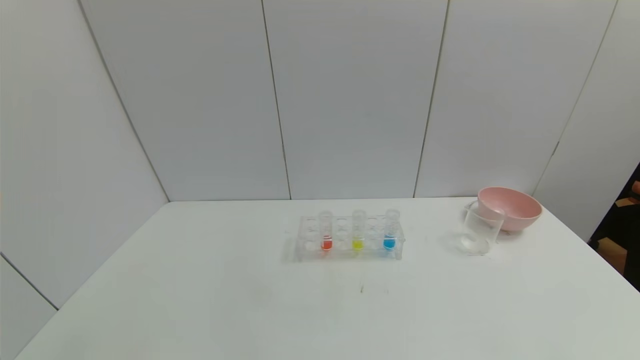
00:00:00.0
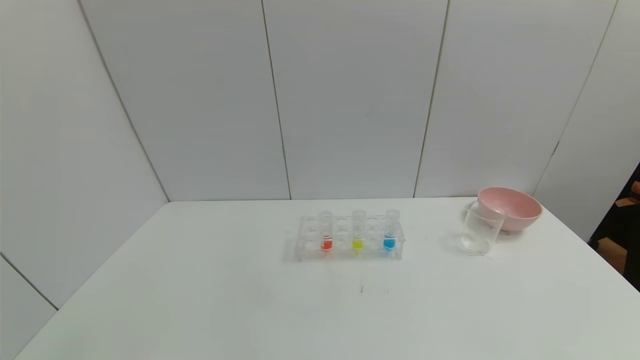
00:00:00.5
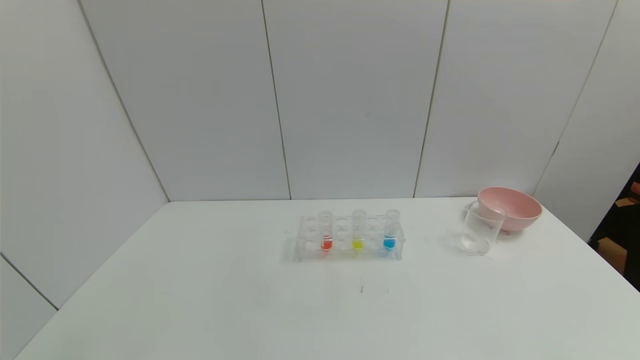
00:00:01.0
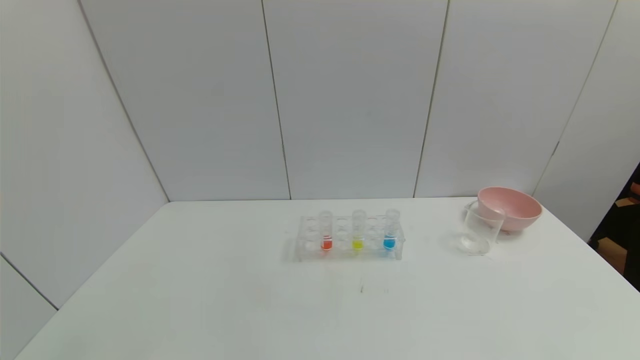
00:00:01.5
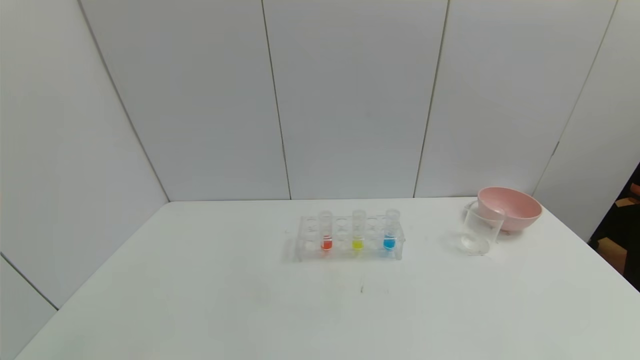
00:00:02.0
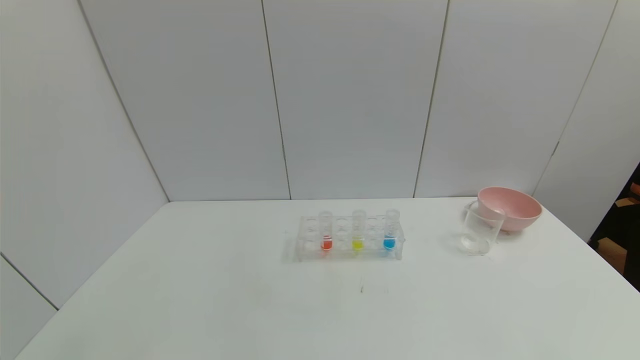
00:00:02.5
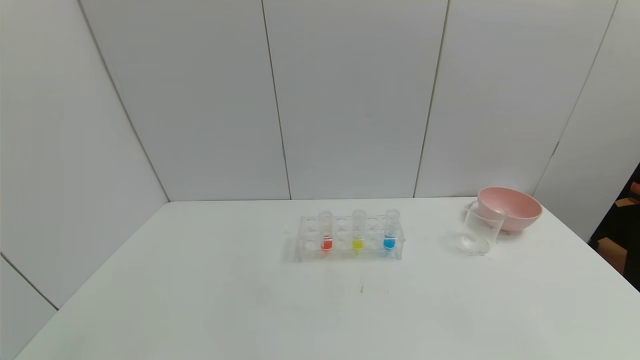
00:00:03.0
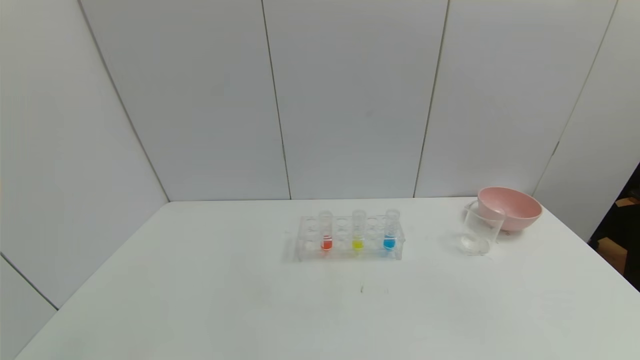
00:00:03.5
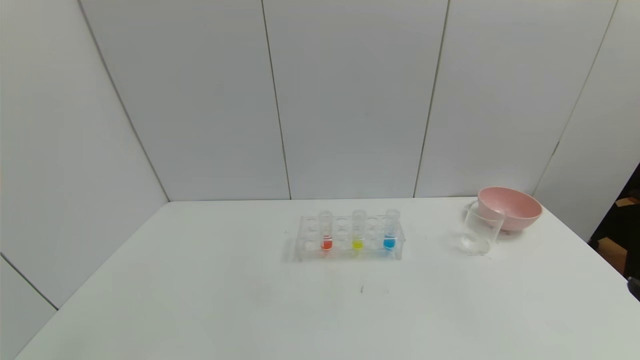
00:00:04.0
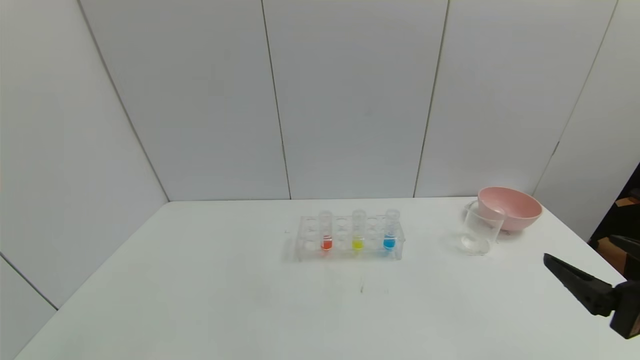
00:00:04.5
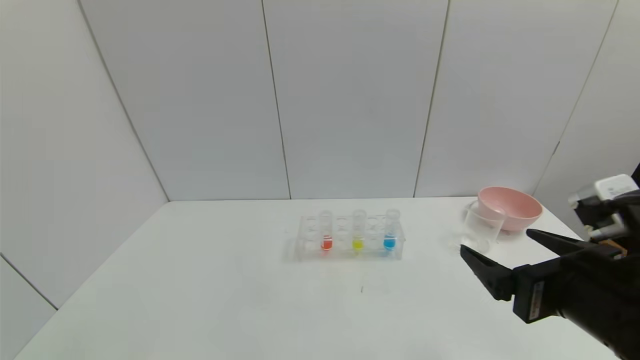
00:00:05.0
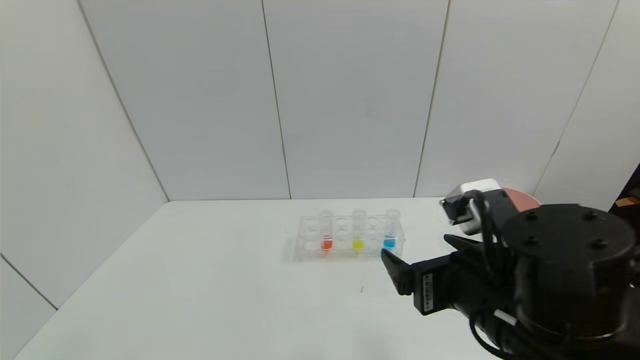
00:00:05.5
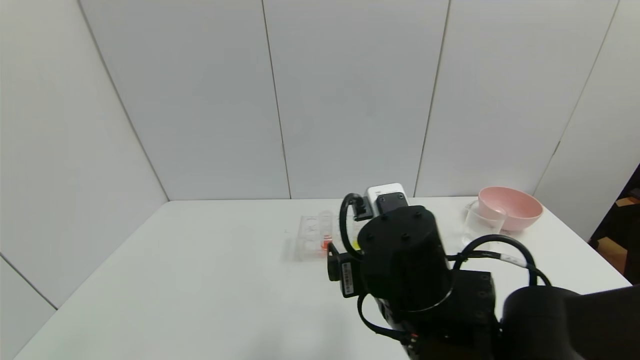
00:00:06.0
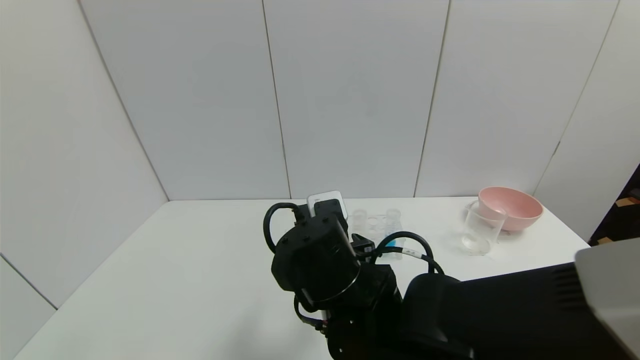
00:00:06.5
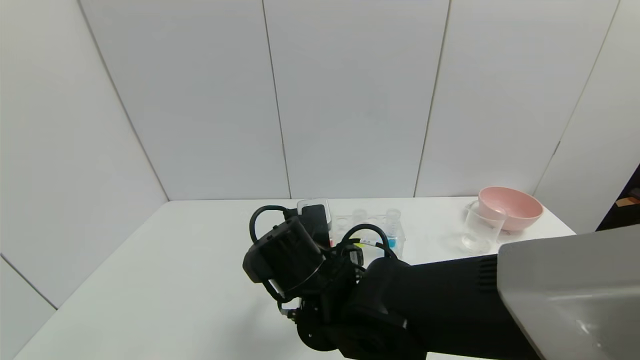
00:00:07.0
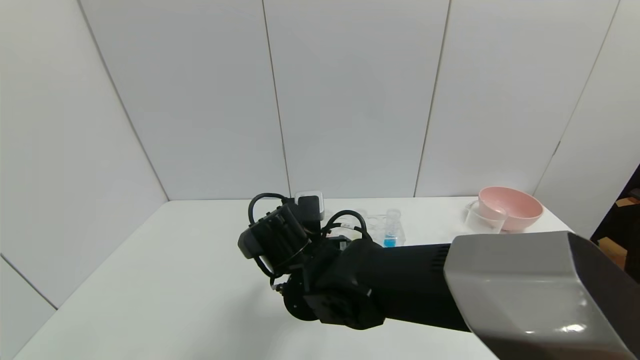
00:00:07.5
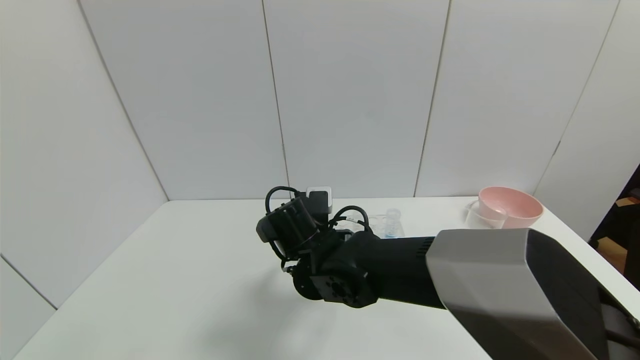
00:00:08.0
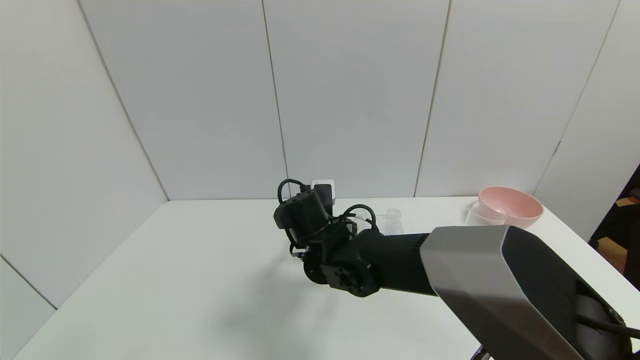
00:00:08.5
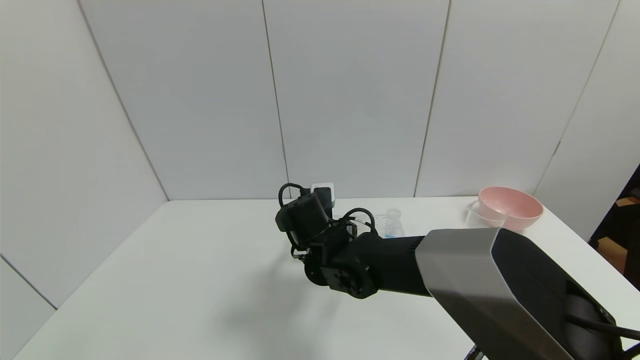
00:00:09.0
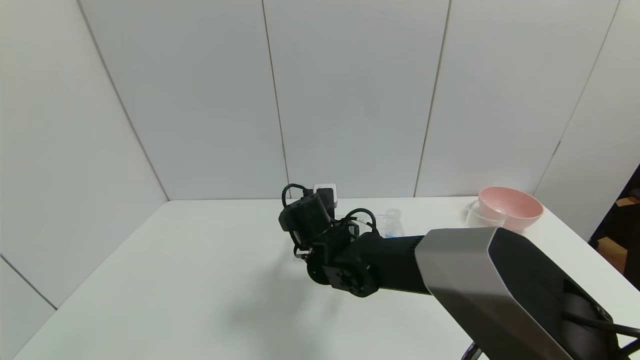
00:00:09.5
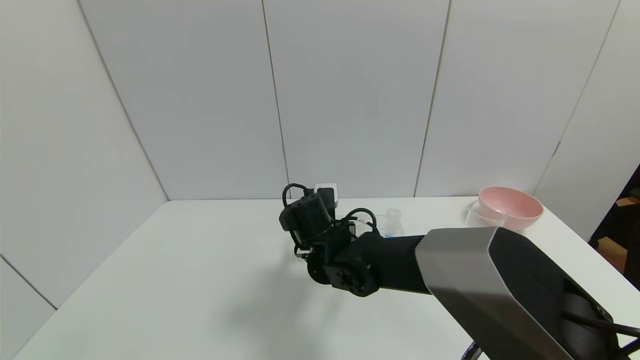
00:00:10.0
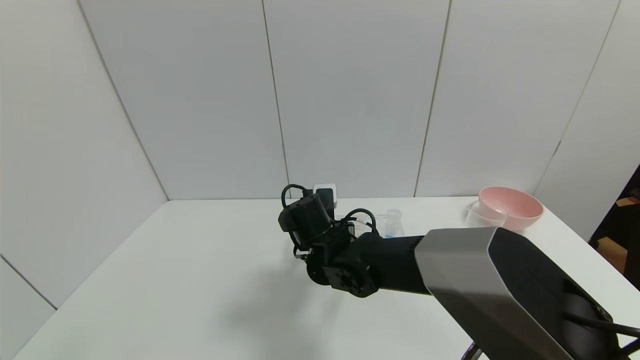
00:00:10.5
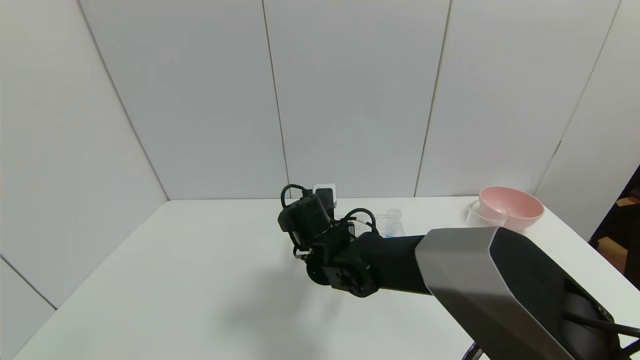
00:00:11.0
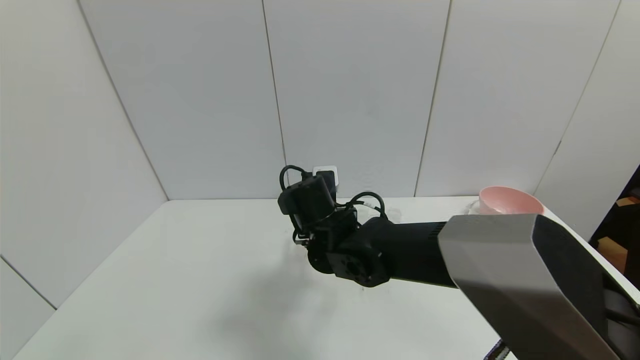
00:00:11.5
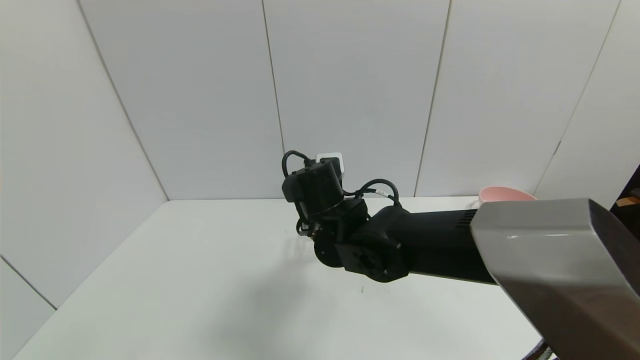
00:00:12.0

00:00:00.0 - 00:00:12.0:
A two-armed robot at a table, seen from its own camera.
Task of the whole recording: pick up the test tube with yellow pigment and the test tube with red pigment by grippers and pour them into the beaker.
Step, 00:00:00.0 - 00:00:10.0: Grasp the red reagent with the right gripper.
00:00:00.0 - 00:00:02.0: Both grippers stay put.
00:00:04.0 - 00:00:06.0: The right gripper goes some 30 cm to the left and forward.
00:00:06.0 - 00:00:08.0: The right gripper heads forward, to the left and downward, covering some 15 cm.
00:00:08.0 - 00:00:10.0: The right gripper closes its fingers.
00:00:10.0 - 00:00:12.0: The right gripper travels upward by about 5 cm, and closes.

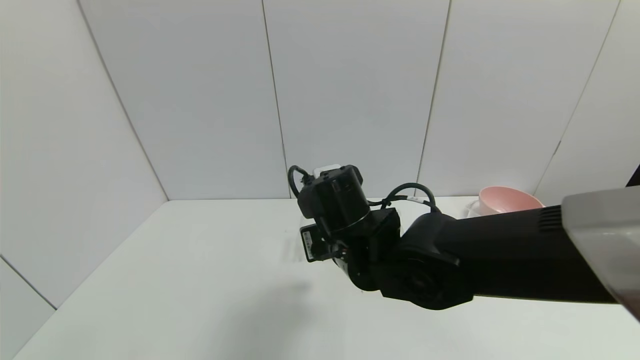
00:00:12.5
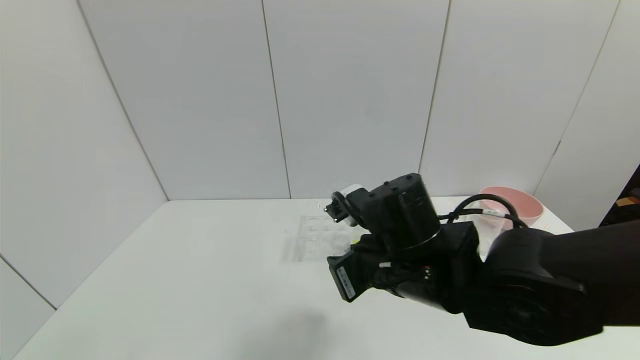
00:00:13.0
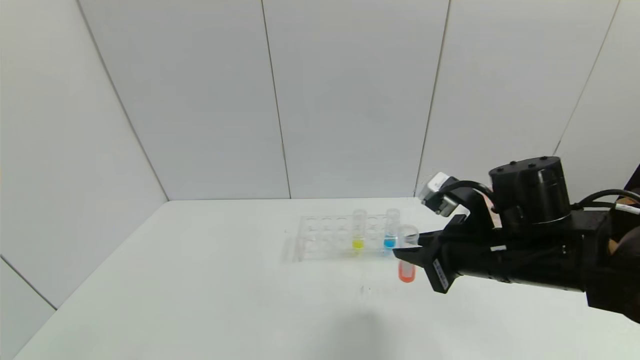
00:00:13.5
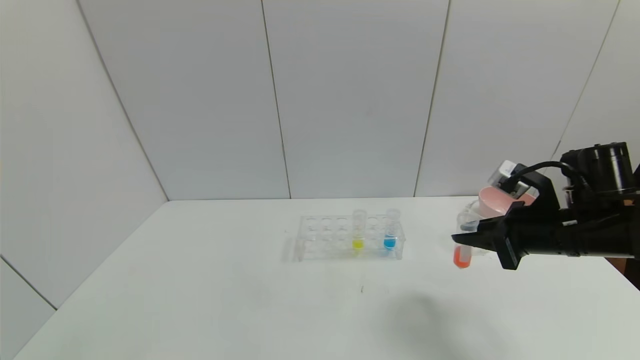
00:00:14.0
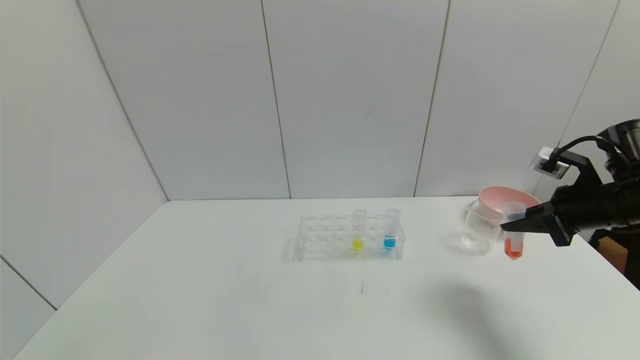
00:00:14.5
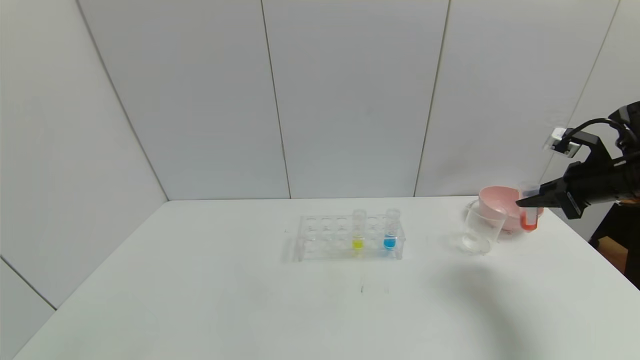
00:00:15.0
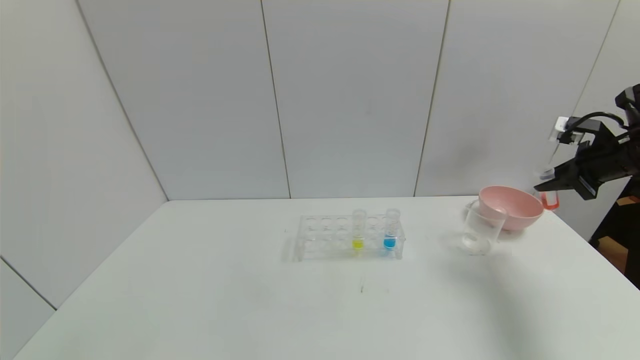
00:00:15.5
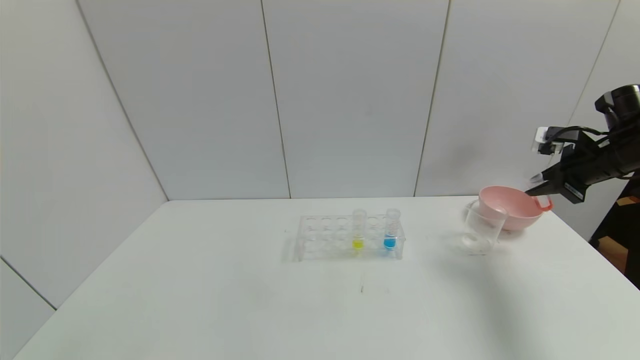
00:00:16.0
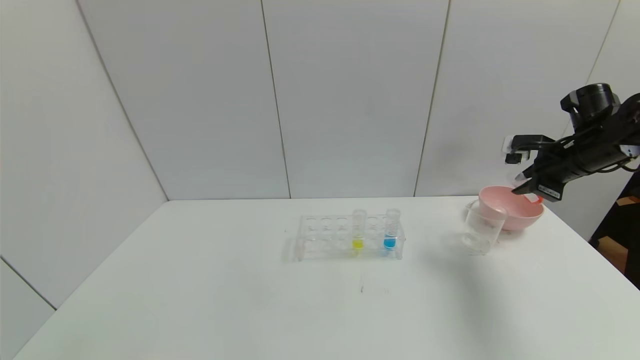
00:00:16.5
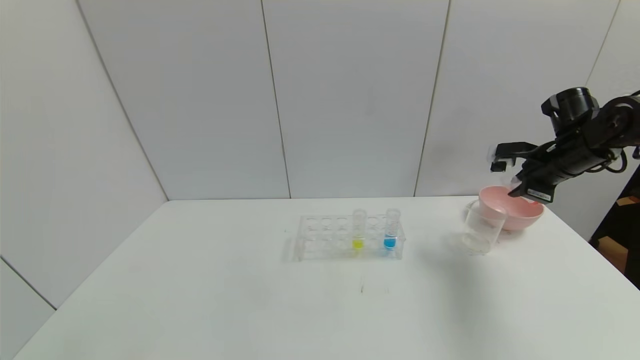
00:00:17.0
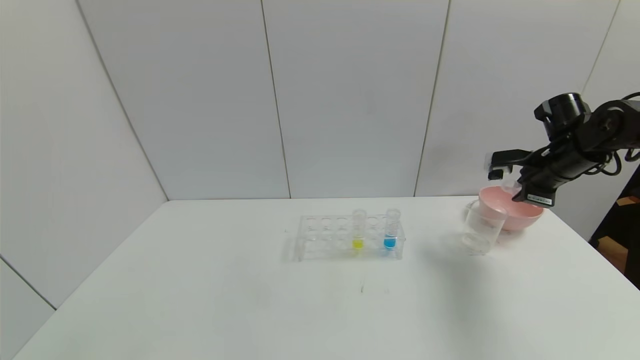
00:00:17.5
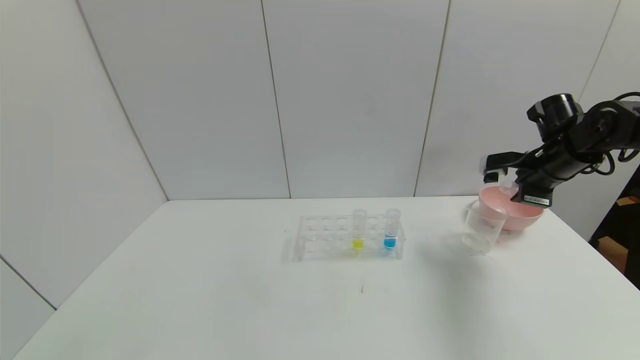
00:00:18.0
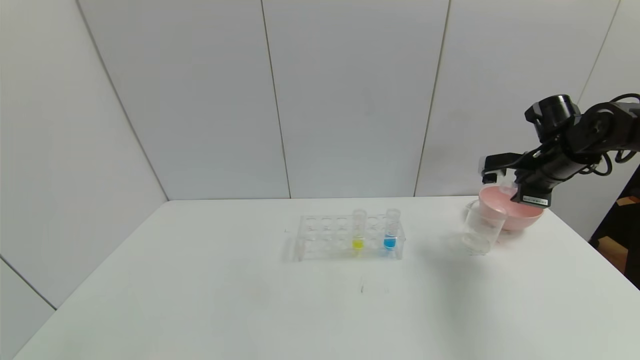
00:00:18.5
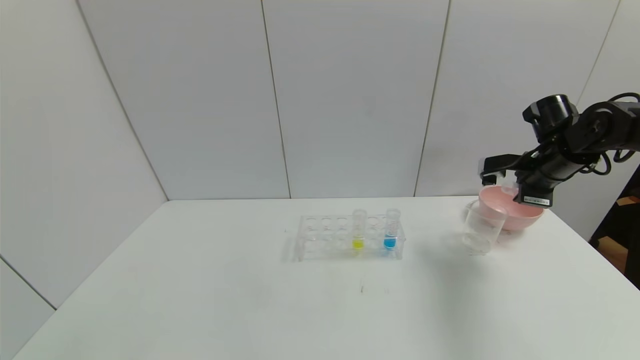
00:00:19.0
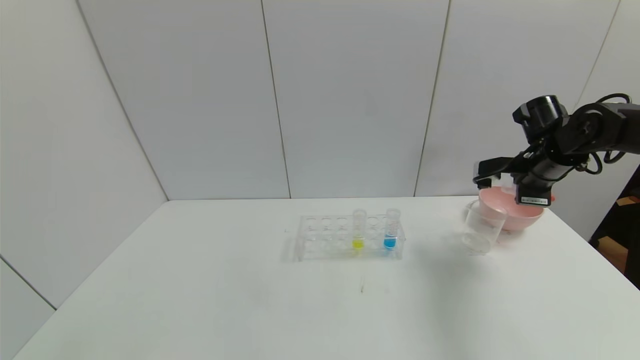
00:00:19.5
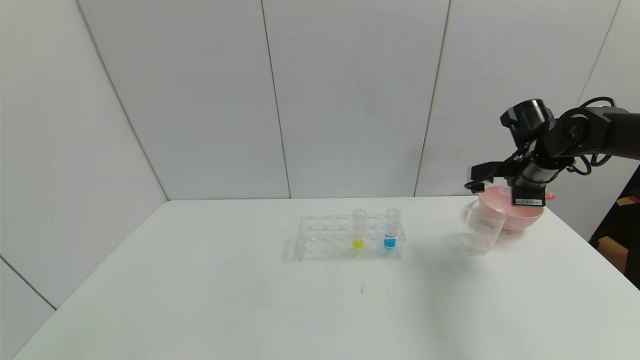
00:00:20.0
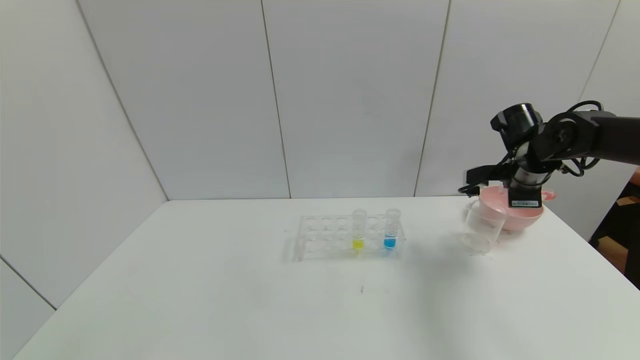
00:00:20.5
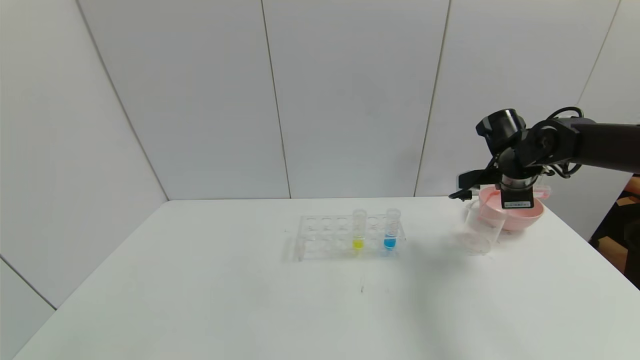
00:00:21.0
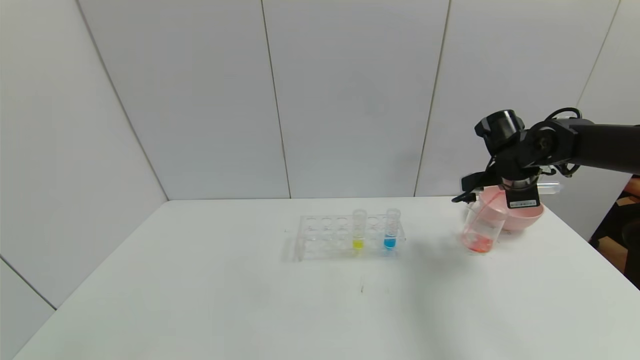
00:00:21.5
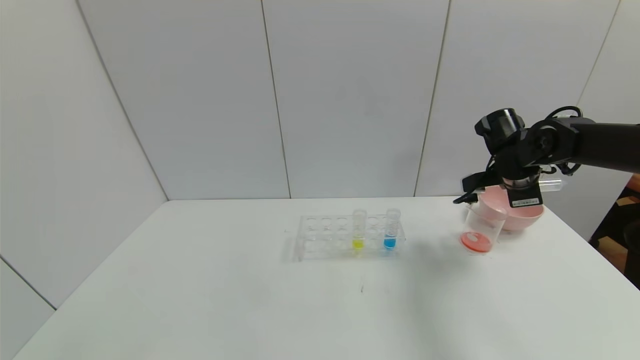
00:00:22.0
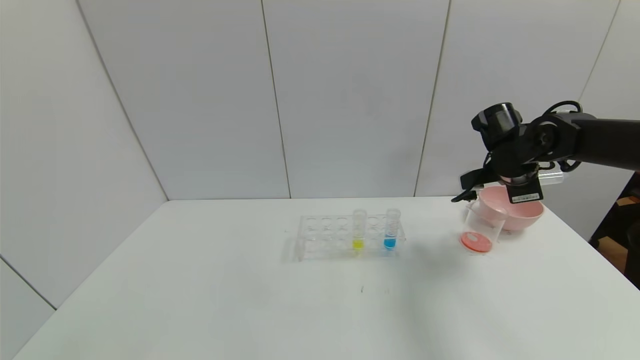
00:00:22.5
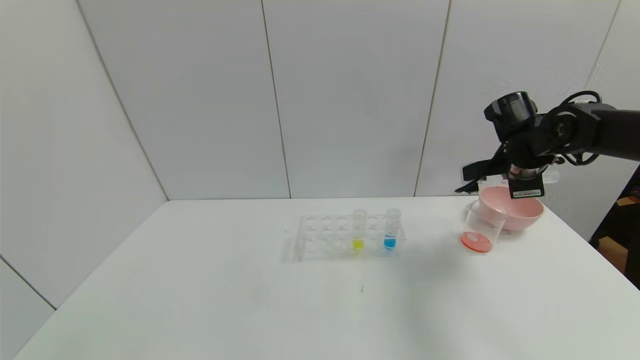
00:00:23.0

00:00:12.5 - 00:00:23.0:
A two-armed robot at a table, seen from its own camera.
Task of the whole recording: pick up the test tube with yellow pigment and the test tube with red pigment by grippers and pour them into the beaker.
Step, 00:00:12.5 - 00:00:23.0: Pour the red reagent into the graduated cylinder with the right gripper.
00:00:12.5 - 00:00:14.5: The right gripper travels to the right by about 35 cm.
00:00:14.5 - 00:00:16.5: The right gripper travels forward by approximately 10 cm.
00:00:19.0 - 00:00:21.0: The right gripper travels to the left by some 5 cm.
00:00:21.0 - 00:00:23.0: The grippers stay close to where they were, moving slightly.
